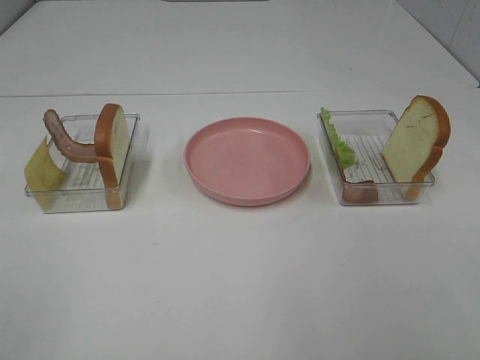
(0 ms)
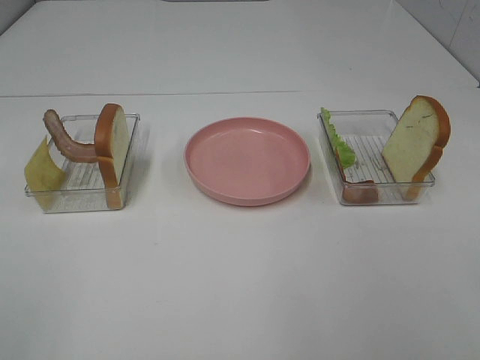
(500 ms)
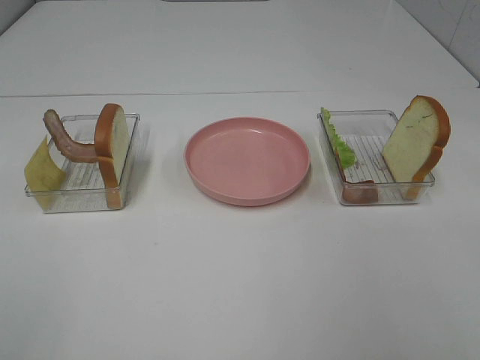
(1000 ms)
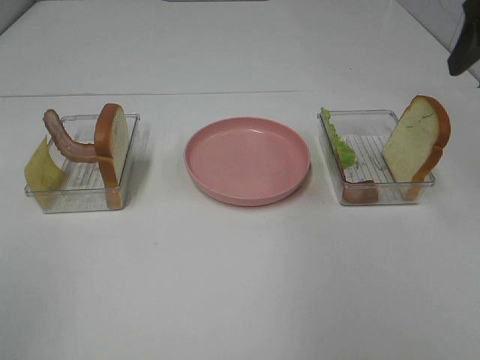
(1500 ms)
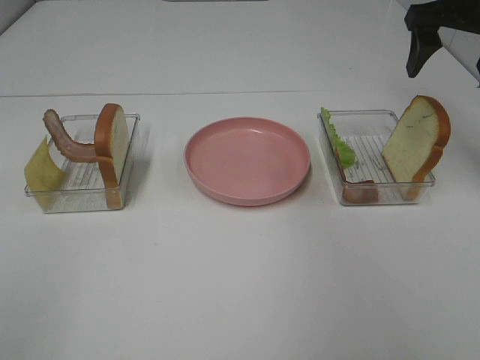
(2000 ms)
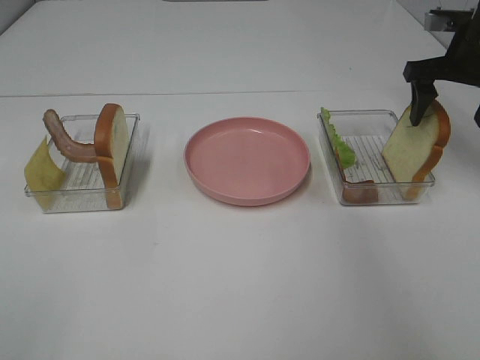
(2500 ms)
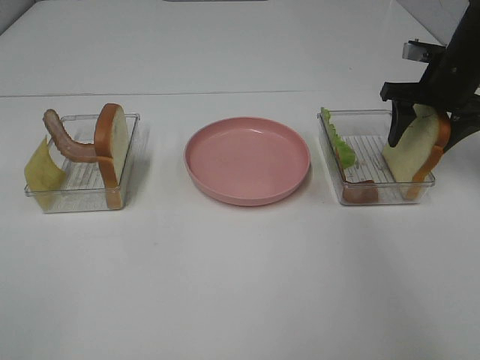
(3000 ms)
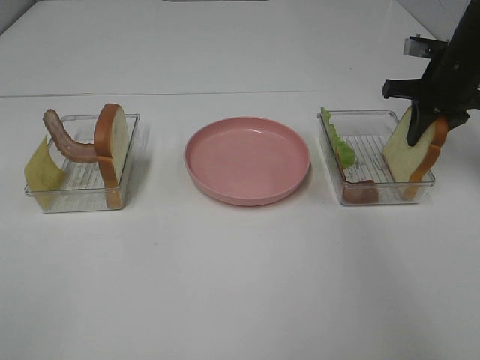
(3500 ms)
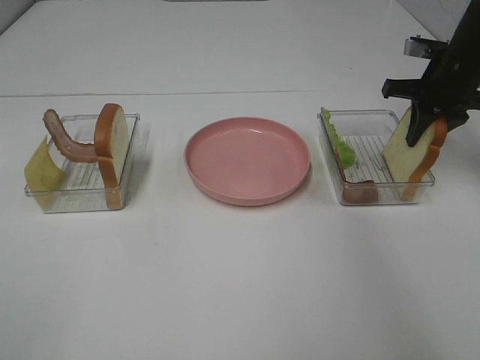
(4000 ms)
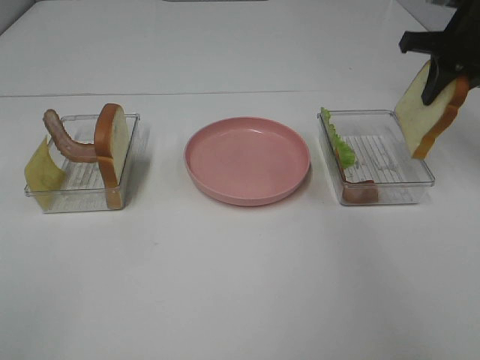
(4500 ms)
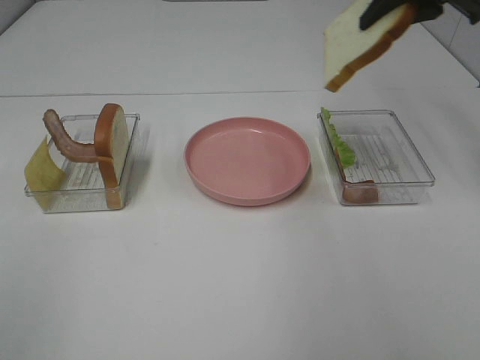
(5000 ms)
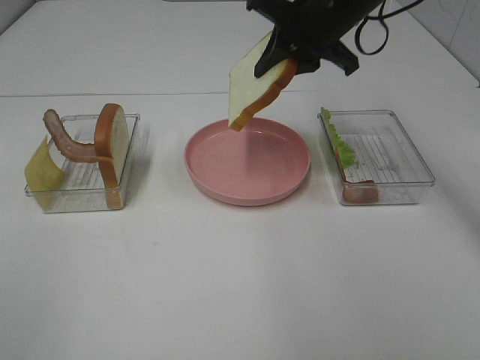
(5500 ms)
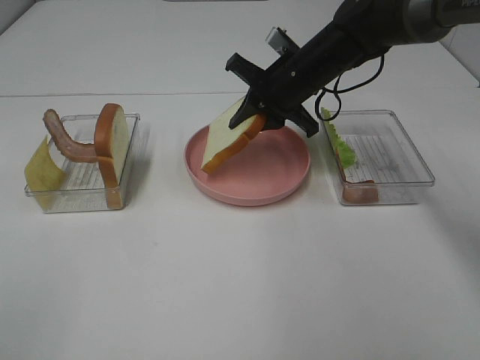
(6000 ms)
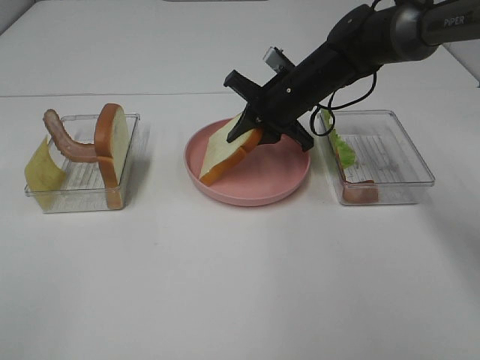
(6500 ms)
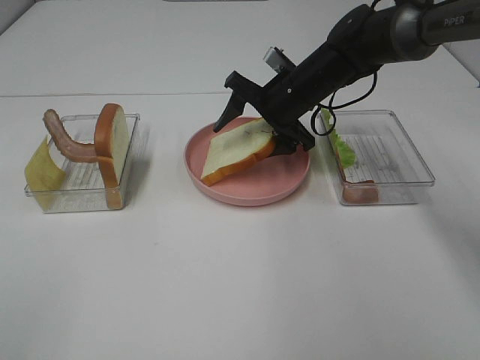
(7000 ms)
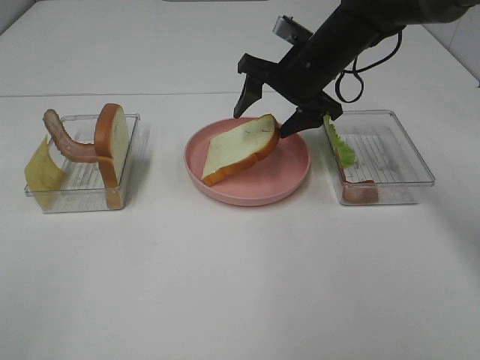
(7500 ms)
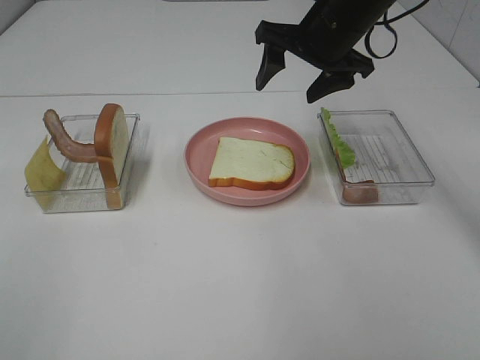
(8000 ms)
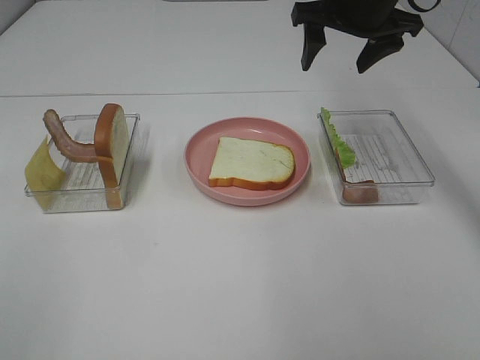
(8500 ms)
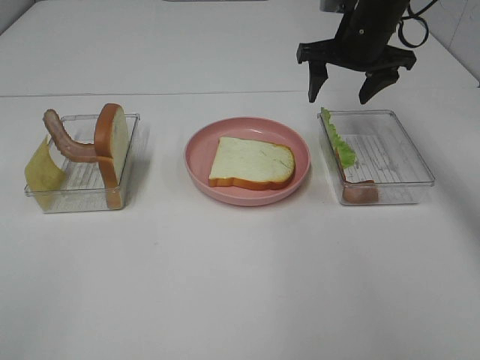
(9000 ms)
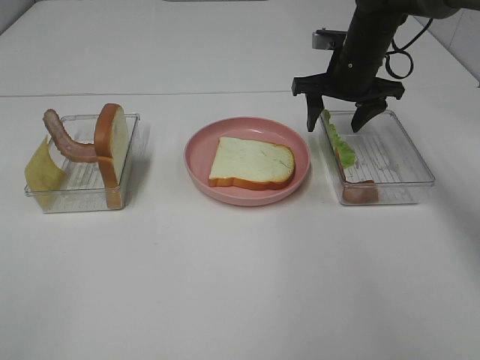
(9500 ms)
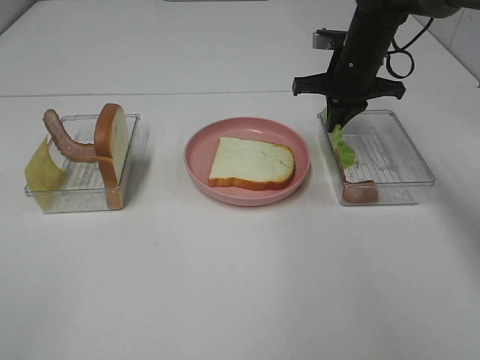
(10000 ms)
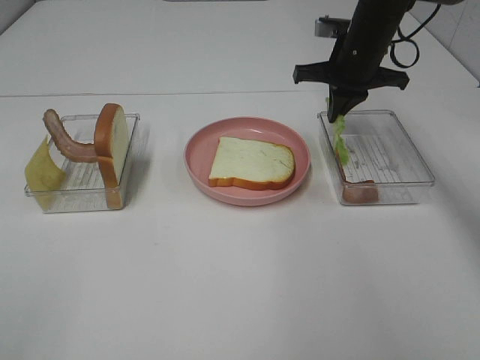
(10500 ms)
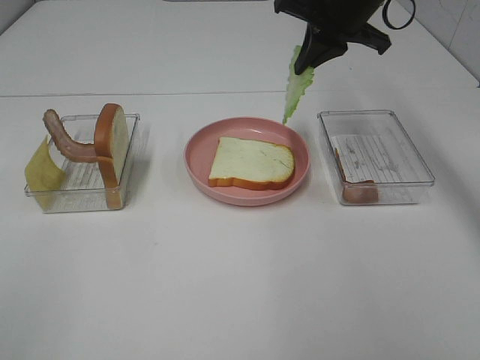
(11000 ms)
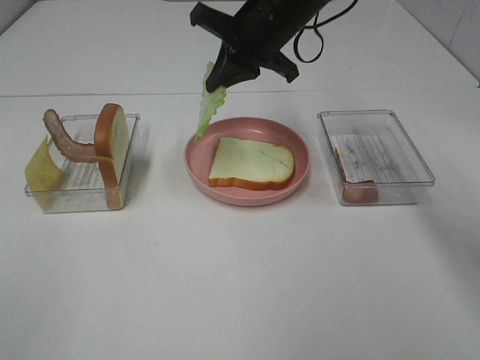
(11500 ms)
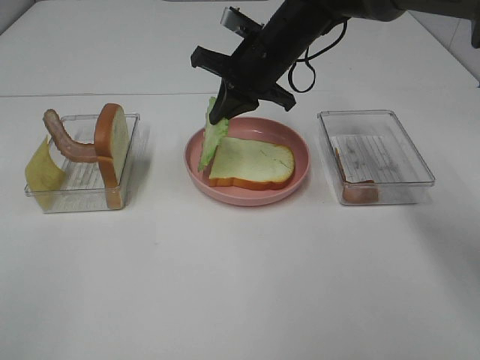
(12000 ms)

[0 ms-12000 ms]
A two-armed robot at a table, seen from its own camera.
Task of the whole recording: Make sandwiches.
Step, 0 ms to 3500 ms: Right hand:grab the bread slice.
Step, 4000 ms to 7500 ms: Right hand:place the bread slice on the plate.
Step, 8000 ms to 10000 ms: Right hand:grab the lettuce slice.
0 ms to 2000 ms: The right gripper goes approximately 40 cm forward.
2000 ms to 4000 ms: The right gripper goes some 10 cm downward, and closes.
4000 ms to 6000 ms: The right gripper shifts roughly 20 cm to the left.
6000 ms to 8000 ms: The right gripper moves upward, some 10 cm, and opens up.
8000 ms to 10000 ms: The right gripper heads downward and forward, covering some 10 cm, and closes.
10000 ms to 12000 ms: The right gripper travels to the left by approximately 10 cm.

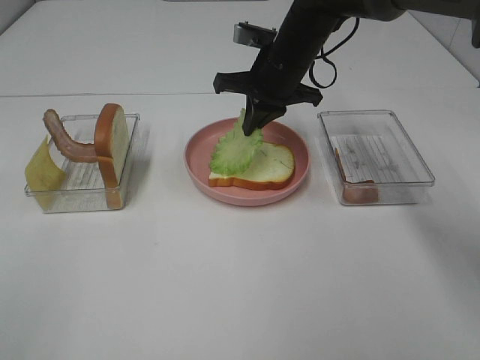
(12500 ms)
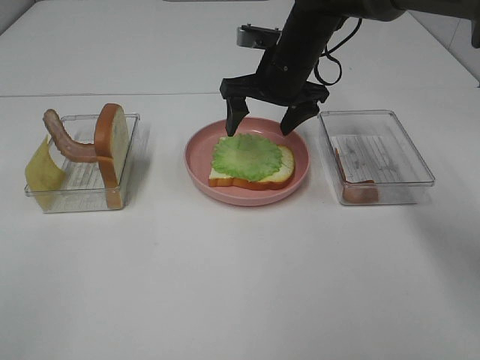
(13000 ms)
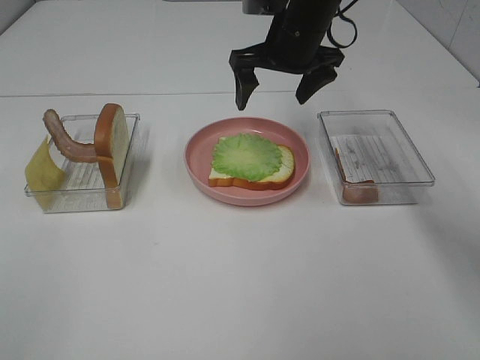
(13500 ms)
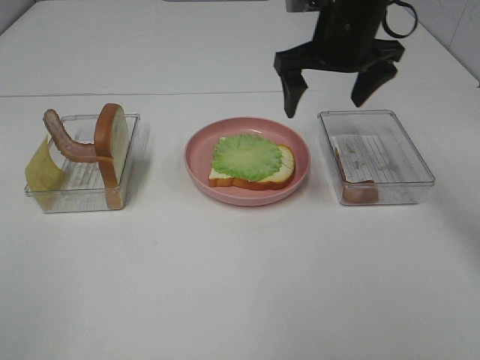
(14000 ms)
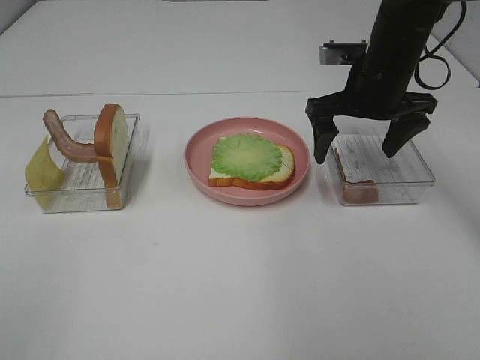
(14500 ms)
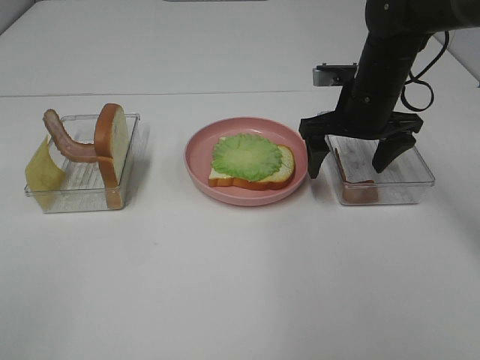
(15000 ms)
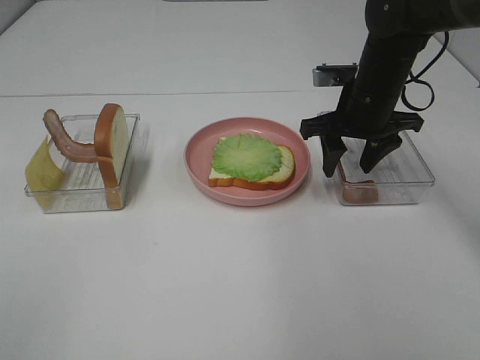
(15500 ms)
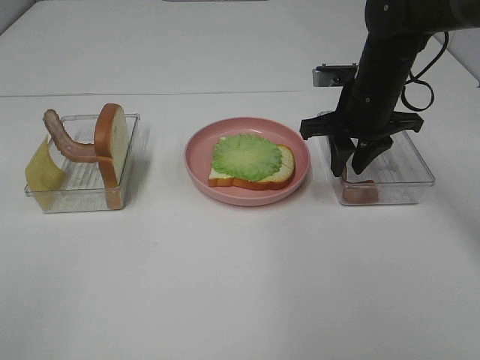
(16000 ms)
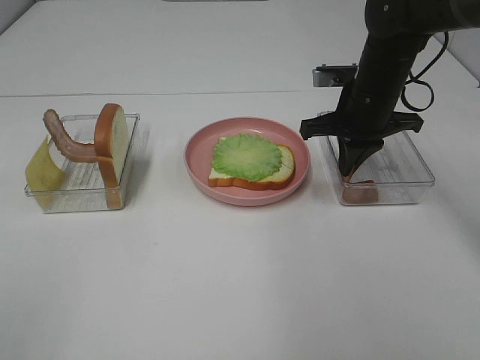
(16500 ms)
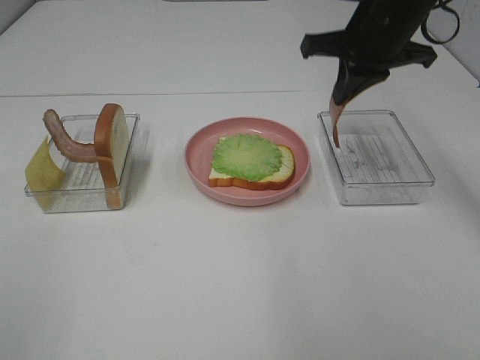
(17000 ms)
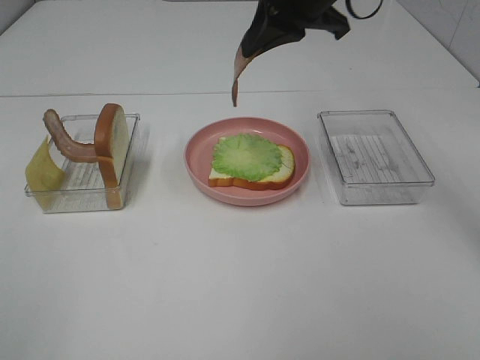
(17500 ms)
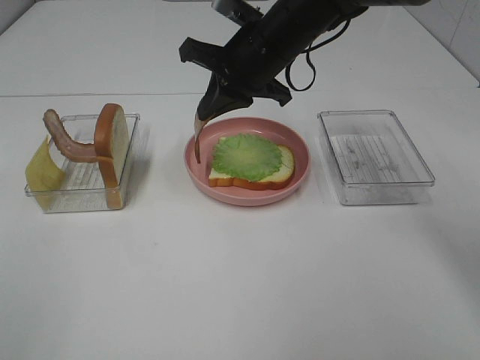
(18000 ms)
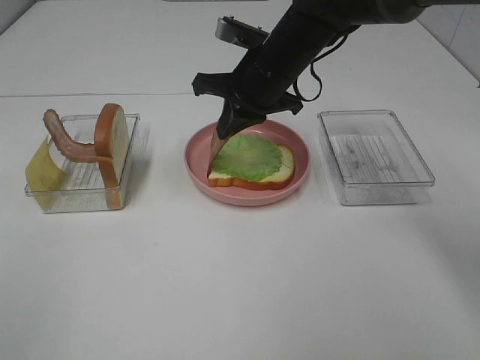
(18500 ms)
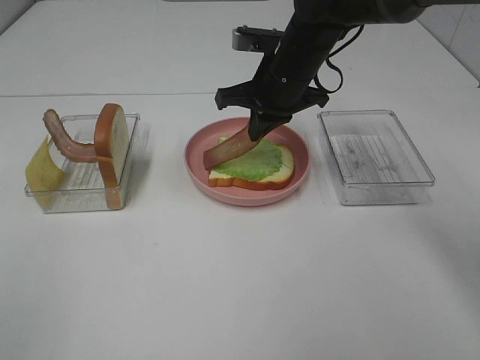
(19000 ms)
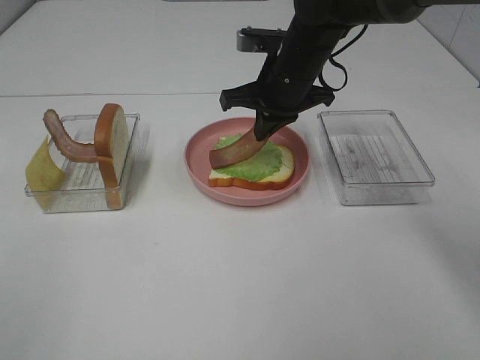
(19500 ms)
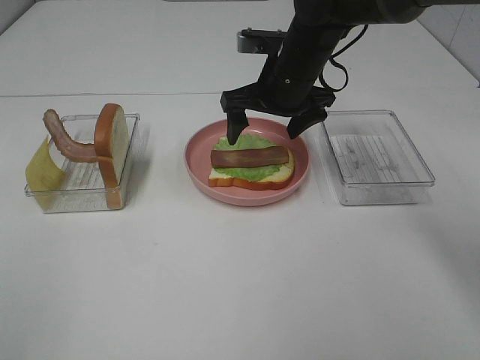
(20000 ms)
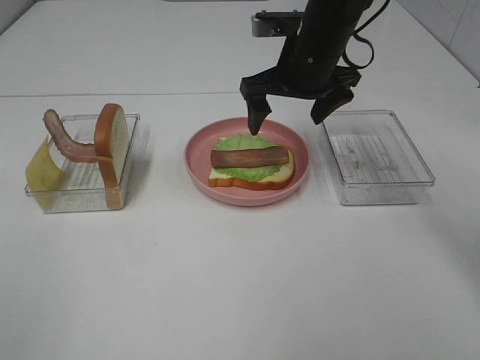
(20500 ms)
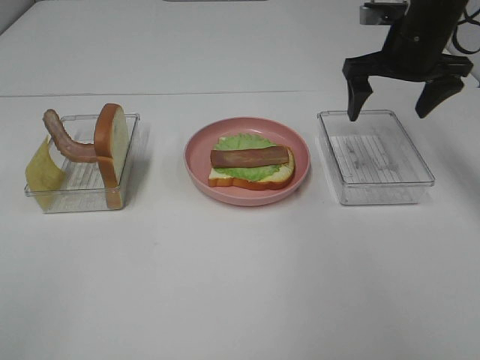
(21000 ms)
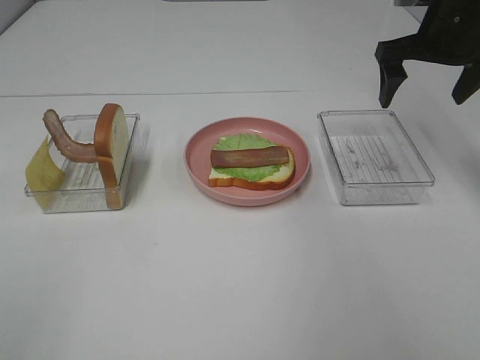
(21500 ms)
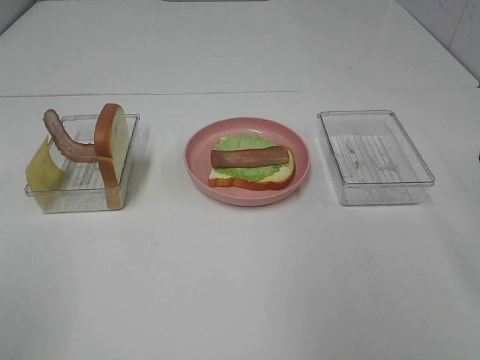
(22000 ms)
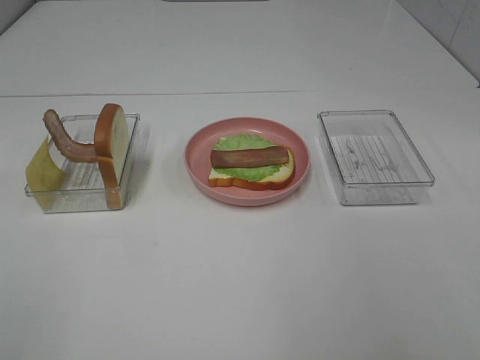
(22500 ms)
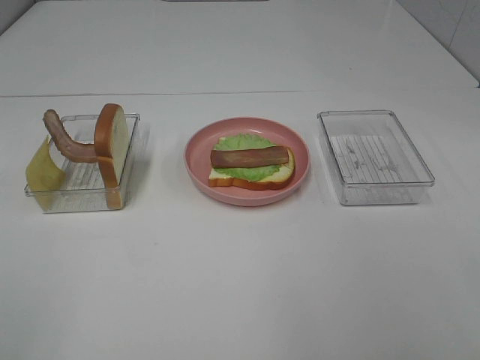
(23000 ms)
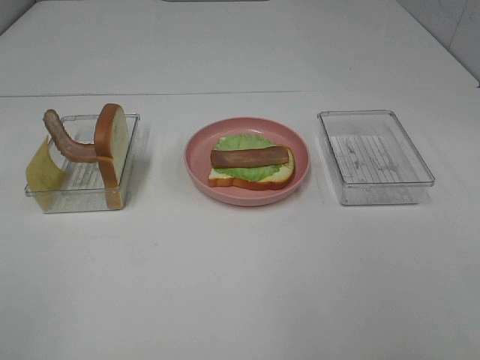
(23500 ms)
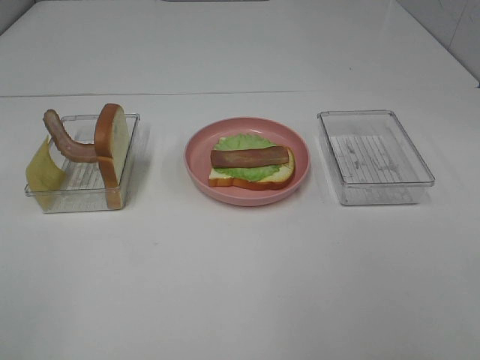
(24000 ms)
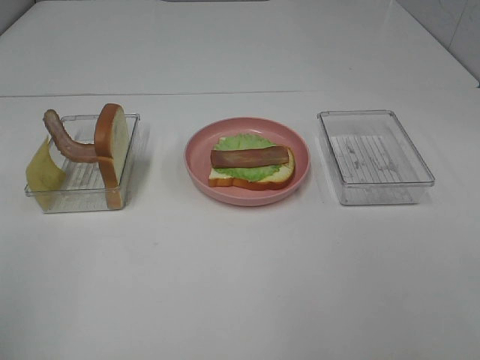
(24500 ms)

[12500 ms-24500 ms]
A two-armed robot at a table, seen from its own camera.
Task of the whole recording: Make sandwiches.
Step, 13500 ms to 16500 ms: Right hand:grab the bacon.
Step, 17000 ms to 19500 ms: Right hand:place bacon on lettuce slice.
12500 ms to 14500 ms: The right gripper shifts about 10 cm to the right and backward, and opens.
14500 ms to 16500 ms: The right gripper closes its fingers.
16500 ms to 18500 ms: The right gripper moves to the left, approximately 10 cm, and travels upward and back again, about 15 cm each way.
18500 ms to 20500 ms: The right gripper shifts by about 5 cm, and opens.
20500 ms to 22500 ms: The right gripper goes some 40 cm backward and to the right.

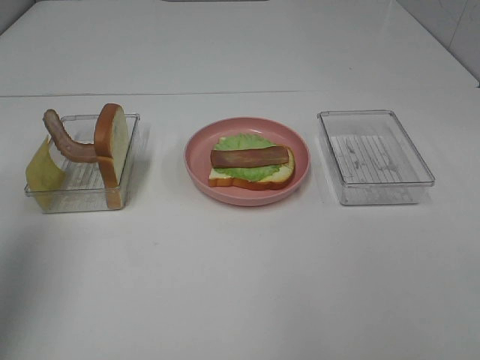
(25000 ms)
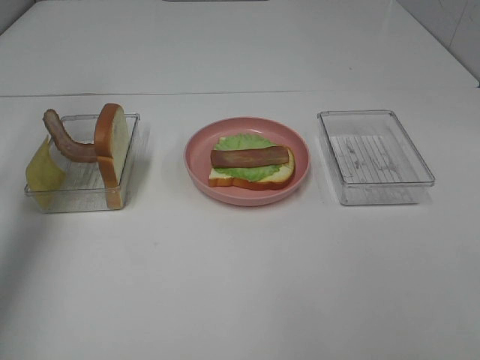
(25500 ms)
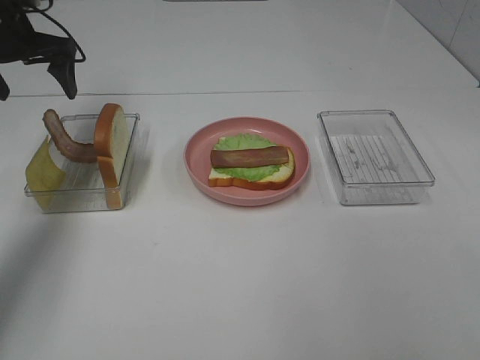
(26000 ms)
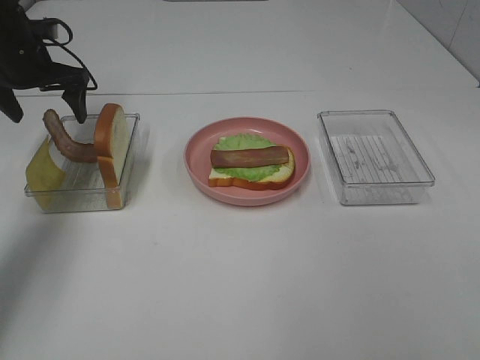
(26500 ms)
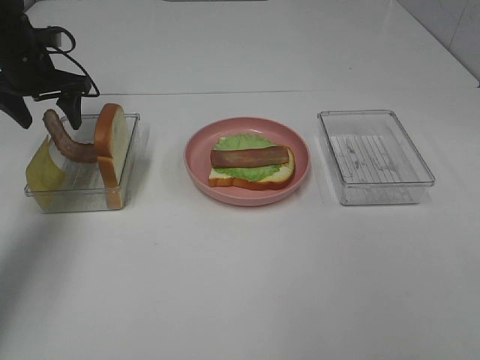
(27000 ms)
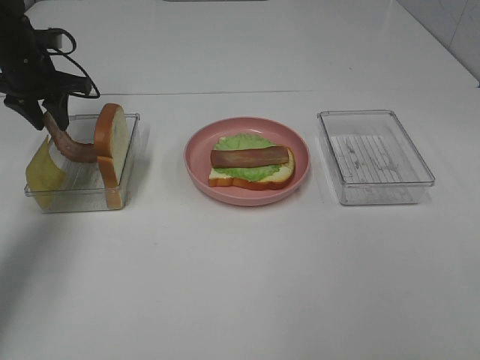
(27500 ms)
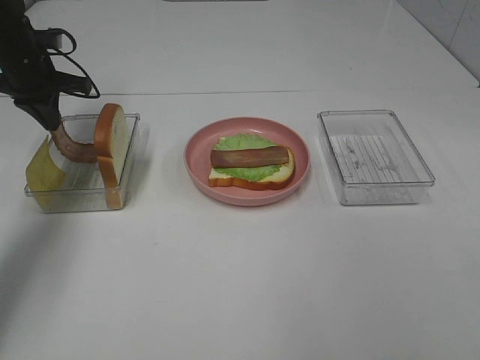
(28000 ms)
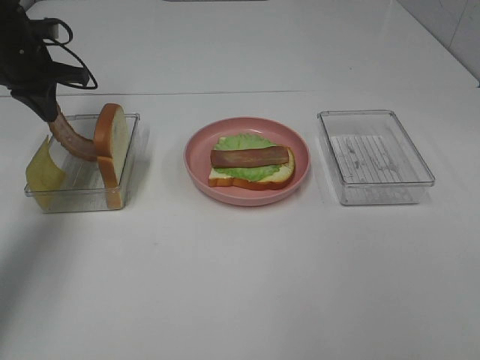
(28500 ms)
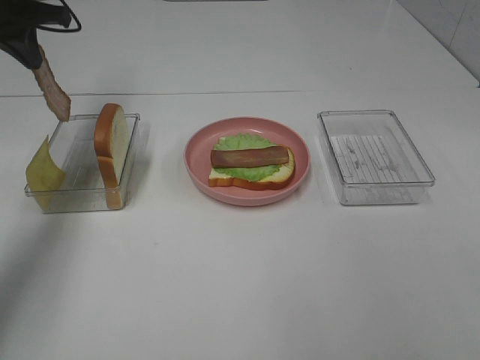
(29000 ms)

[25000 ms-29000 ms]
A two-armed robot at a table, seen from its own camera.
Task of the whole recording: Make sandwiches.
Step, 25000 ms to 28500 ms: Left hand:grab the bacon.
25000 ms to 27000 ms: The left gripper moves forward and downward, approximately 35 cm.
27000 ms to 29000 ms: The left gripper moves upward, about 10 cm, and closes its fingers.
